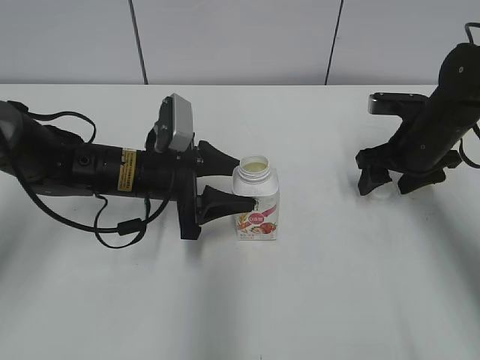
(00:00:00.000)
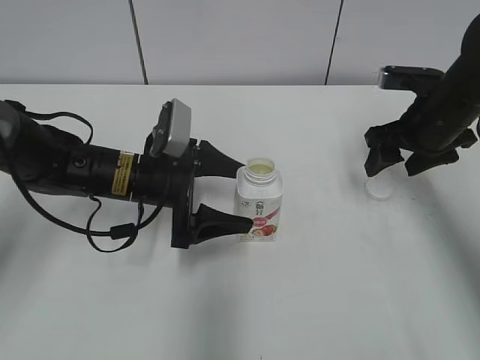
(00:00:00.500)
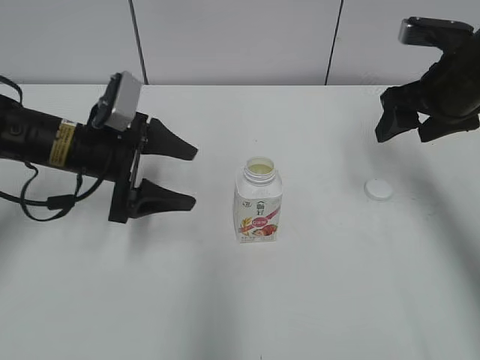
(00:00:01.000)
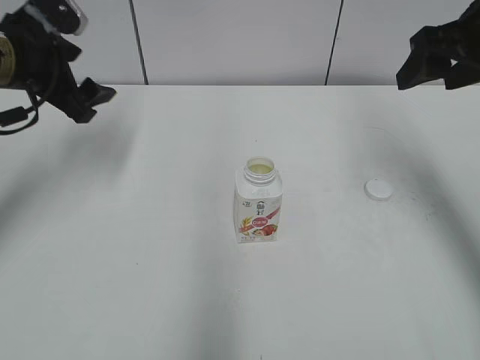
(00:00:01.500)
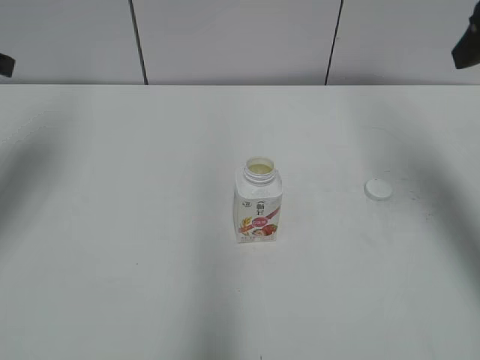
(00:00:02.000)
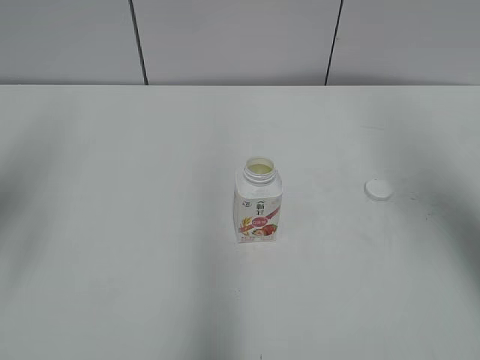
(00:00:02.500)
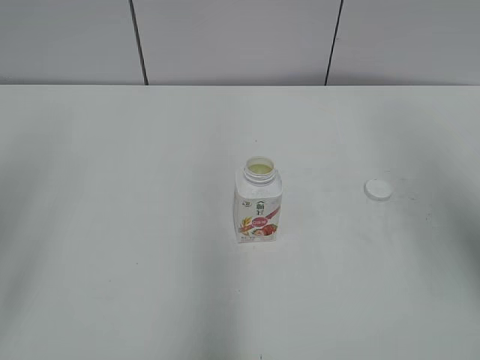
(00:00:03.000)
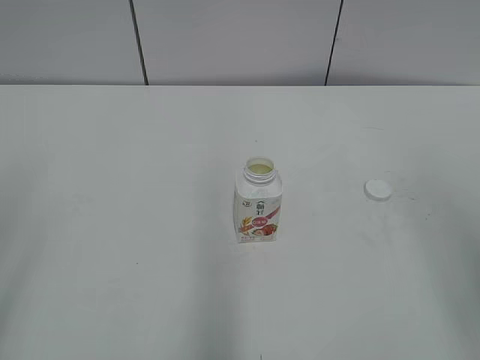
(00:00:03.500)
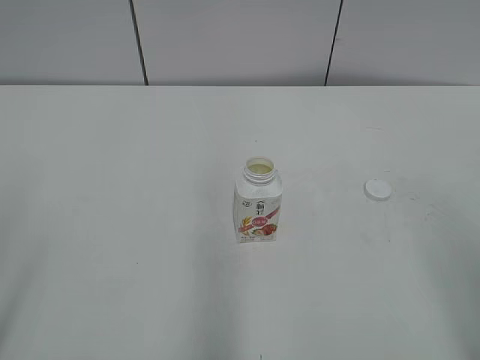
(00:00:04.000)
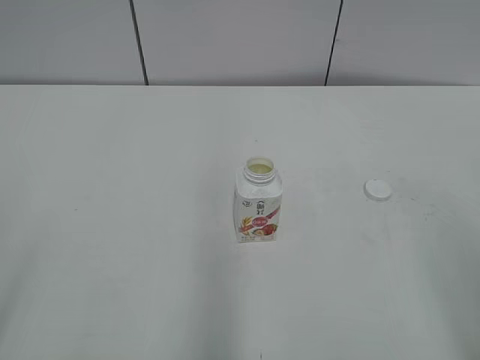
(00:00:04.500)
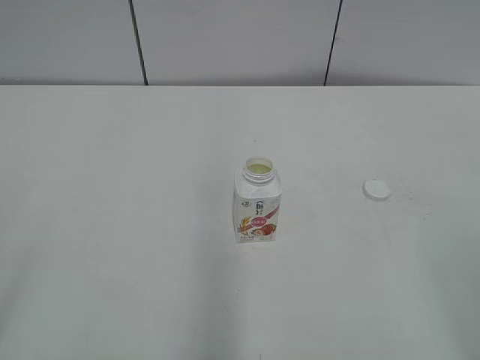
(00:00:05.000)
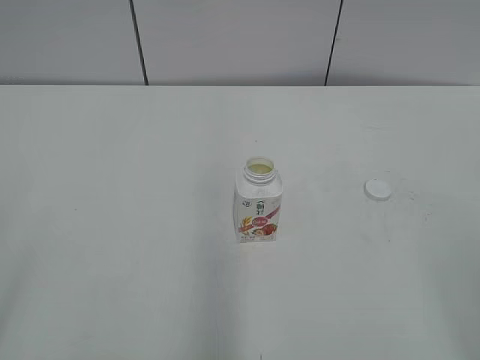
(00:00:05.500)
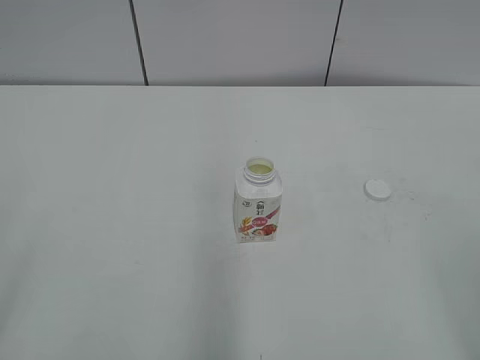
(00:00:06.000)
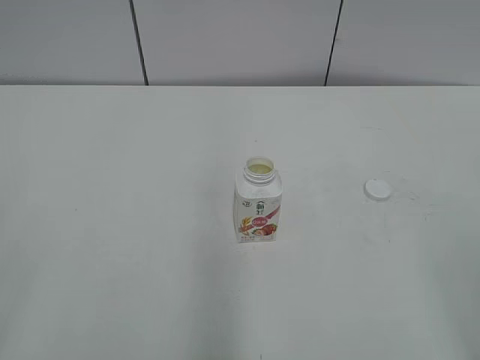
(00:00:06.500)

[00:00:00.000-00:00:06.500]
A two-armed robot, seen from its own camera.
00:00:00.000 to 00:00:02.000: The right gripper is displaced upward by roughly 20 cm; the left gripper moves to the left and upward, roughly 25 cm, and opens, then closes again.
00:00:02.000 to 00:00:04.500: Both grippers move backward, roughly 30 cm.
